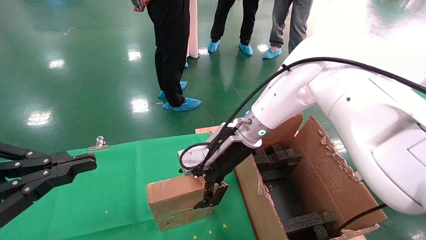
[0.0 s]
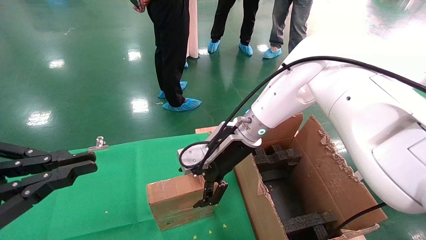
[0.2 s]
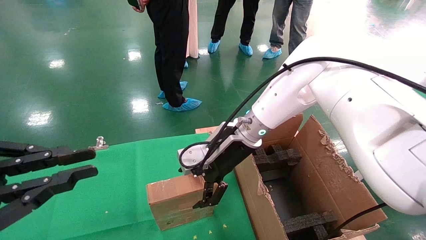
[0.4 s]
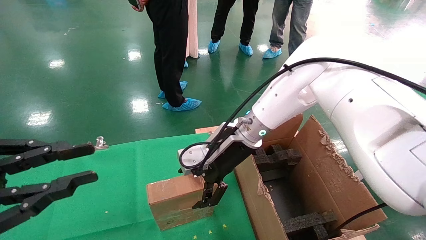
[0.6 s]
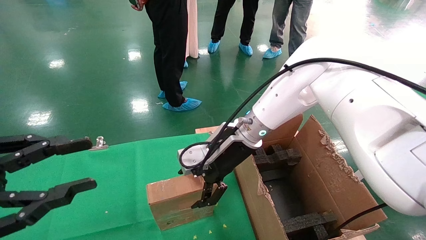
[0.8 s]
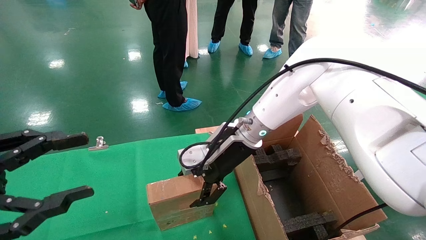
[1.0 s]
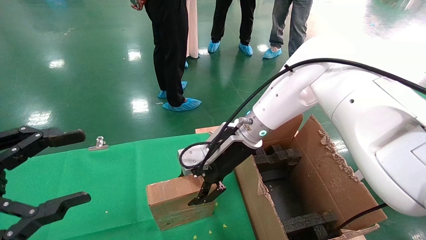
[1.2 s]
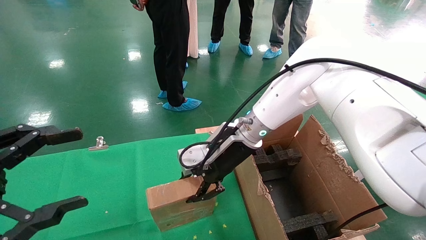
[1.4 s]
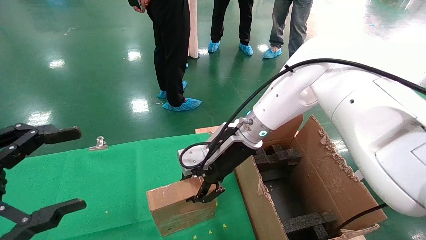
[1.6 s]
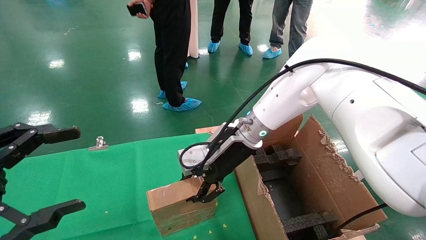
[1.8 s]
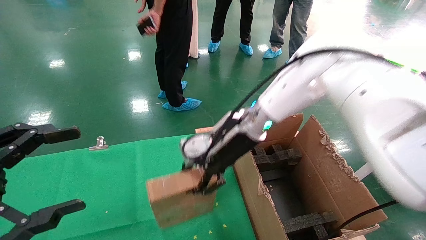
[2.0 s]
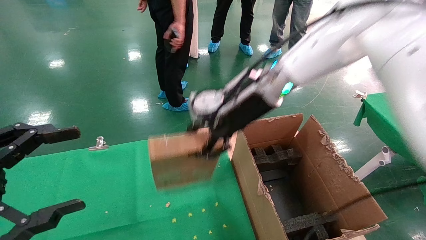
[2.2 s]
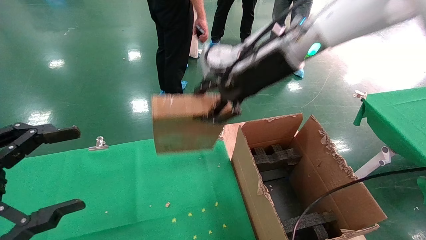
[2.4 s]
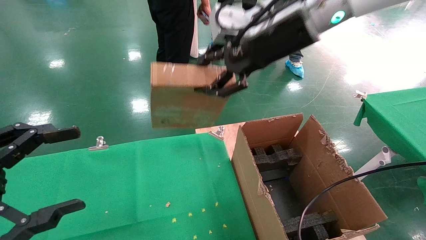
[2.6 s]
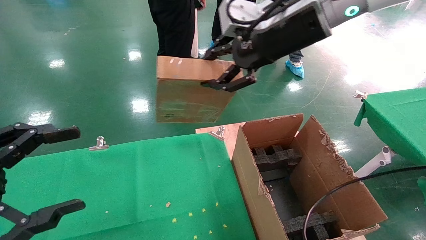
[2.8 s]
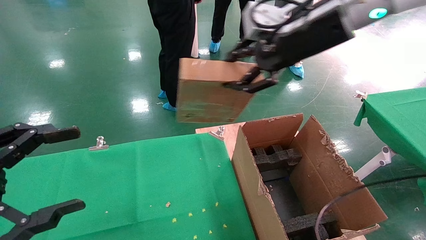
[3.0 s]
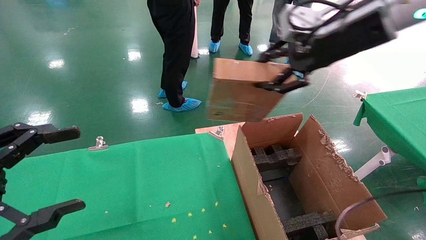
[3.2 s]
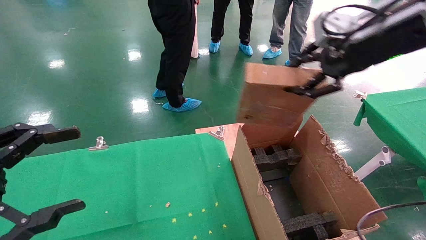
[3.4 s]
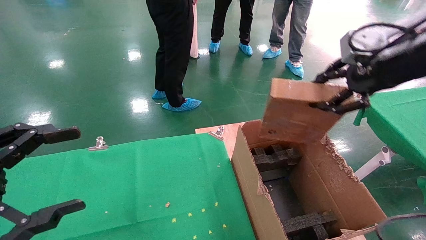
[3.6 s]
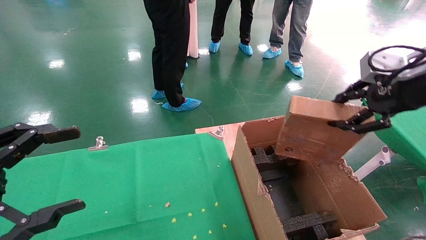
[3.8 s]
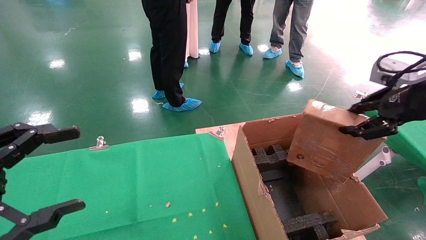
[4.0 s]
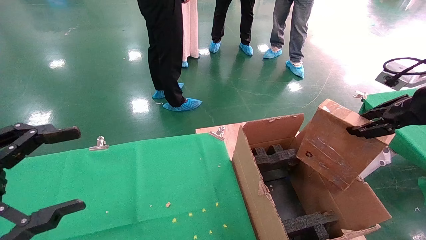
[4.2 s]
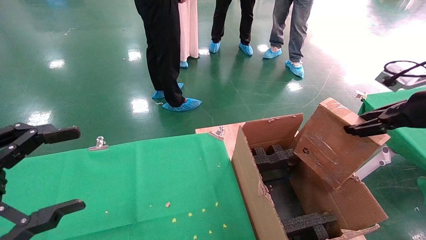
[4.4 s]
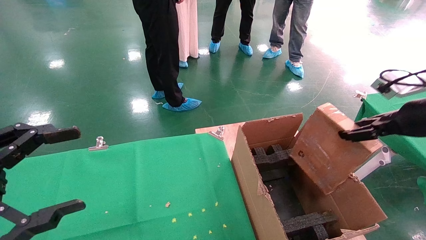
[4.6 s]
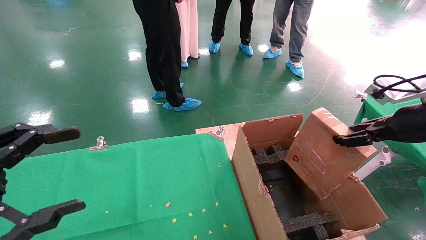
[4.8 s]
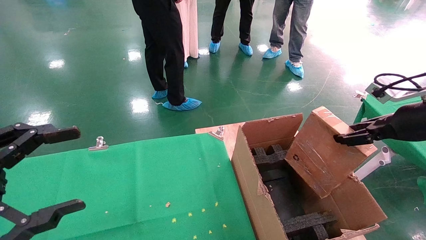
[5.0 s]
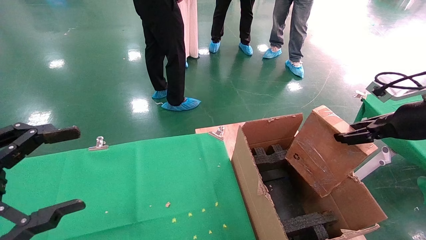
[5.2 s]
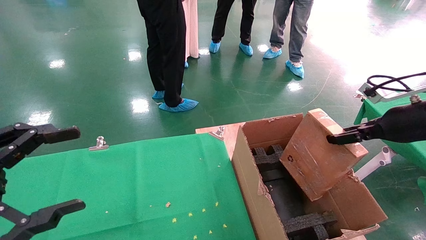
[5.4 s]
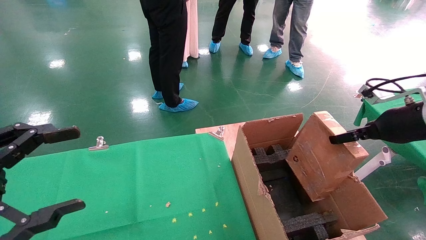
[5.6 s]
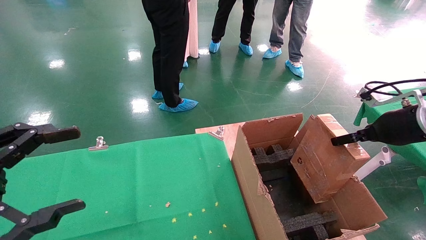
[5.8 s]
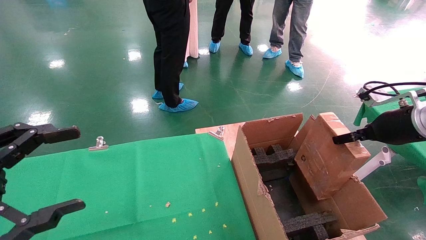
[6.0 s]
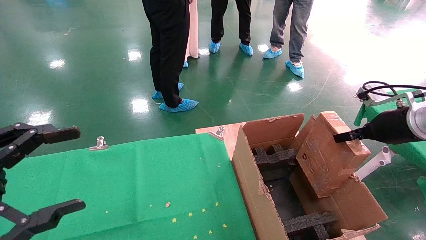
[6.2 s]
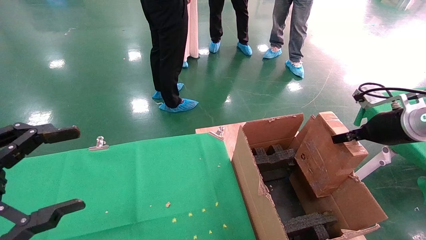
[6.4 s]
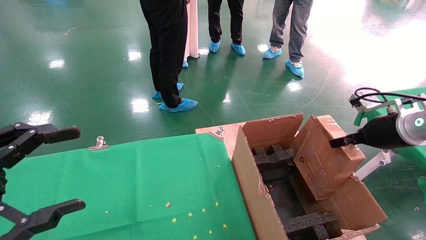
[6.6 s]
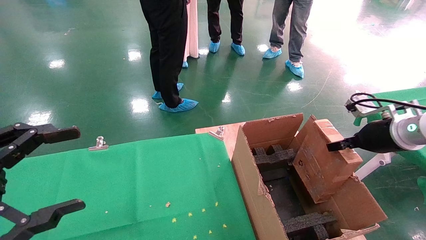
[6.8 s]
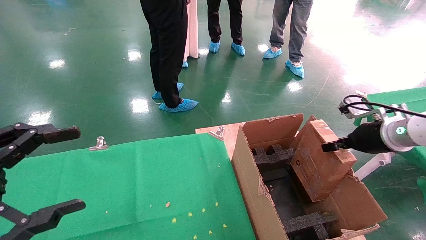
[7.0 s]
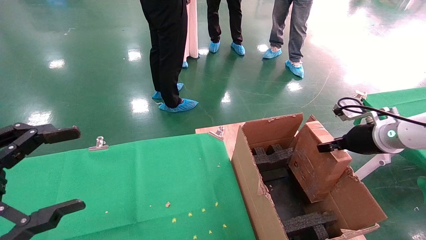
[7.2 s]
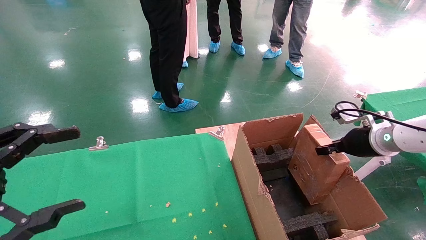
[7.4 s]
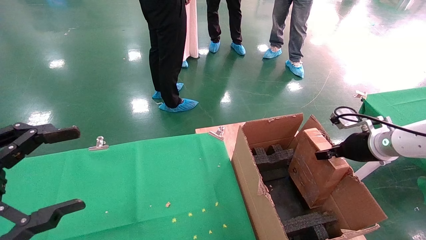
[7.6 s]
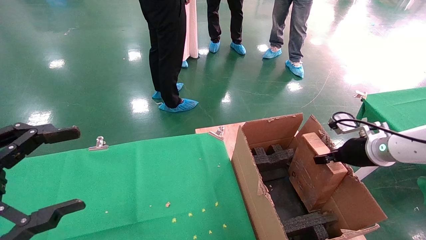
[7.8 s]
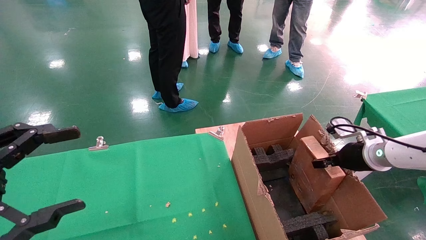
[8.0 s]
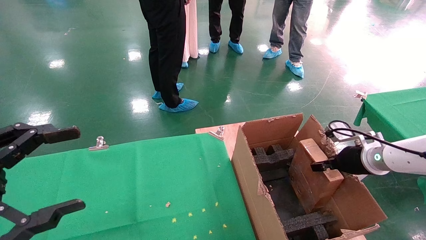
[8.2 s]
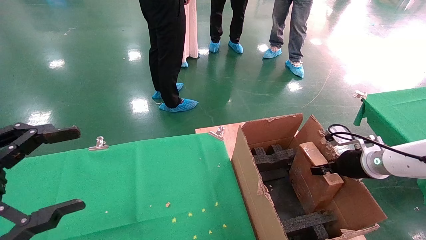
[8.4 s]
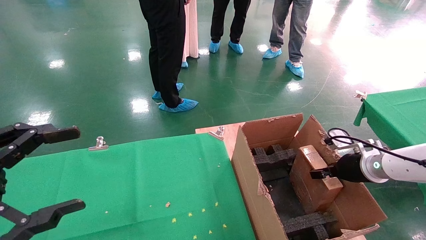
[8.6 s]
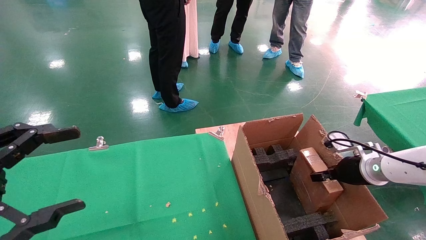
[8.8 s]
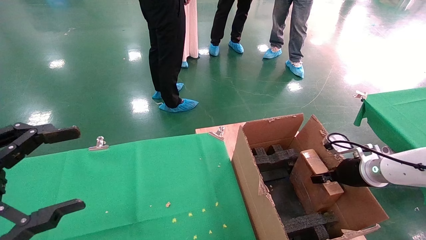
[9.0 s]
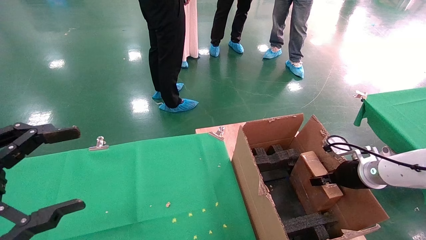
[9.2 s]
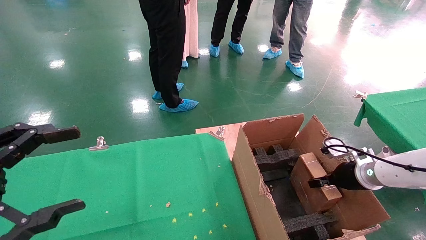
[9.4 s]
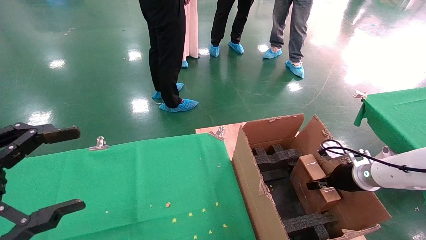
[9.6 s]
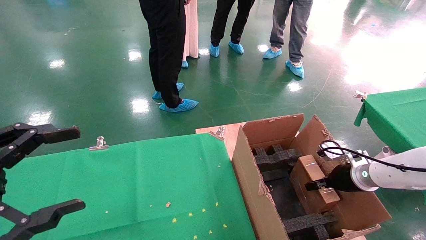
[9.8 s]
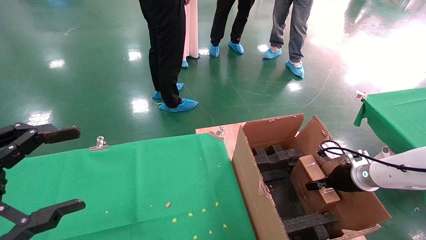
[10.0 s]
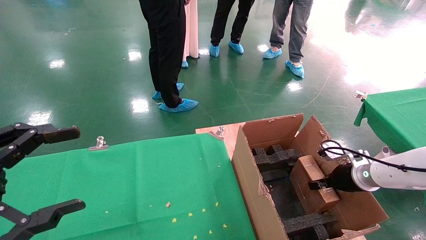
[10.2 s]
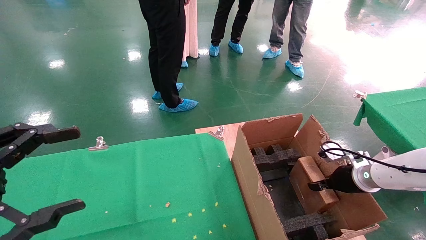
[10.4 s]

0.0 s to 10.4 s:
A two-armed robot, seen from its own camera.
Task of the whole recording: using a robotic arm to pick up a cardboard box and palace it the carton.
0.0 to 1.4 s: The left gripper opens, while the right gripper closes up.
1.4 to 3.0 s: The right gripper travels upward and to the right by about 25 cm, and closes.
3.0 to 4.4 s: The right gripper heads to the right and downward, covering about 25 cm.
4.4 to 6.0 s: The right gripper goes some 5 cm downward.
6.0 to 7.4 s: The right gripper shifts some 10 cm downward and forward.
7.4 to 9.0 s: The right gripper goes about 10 cm downward.
9.0 to 10.4 s: The grippers stay close to where they were, moving slightly.

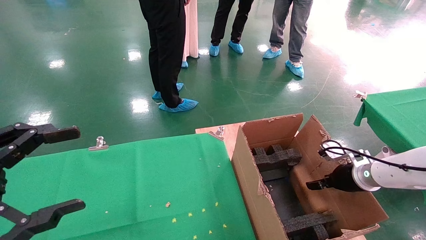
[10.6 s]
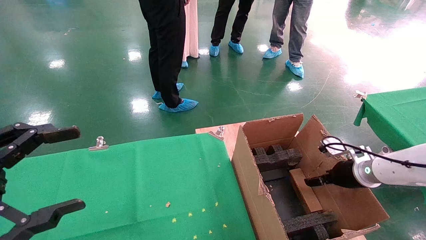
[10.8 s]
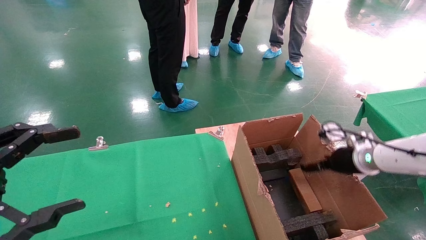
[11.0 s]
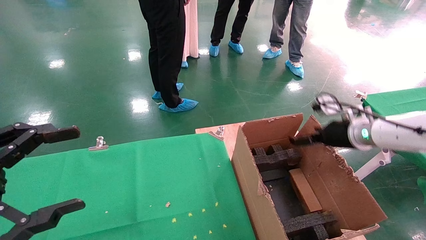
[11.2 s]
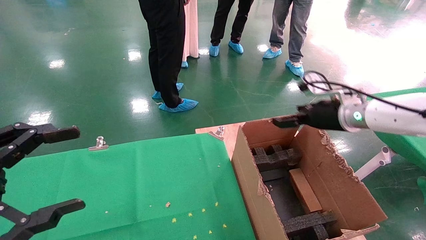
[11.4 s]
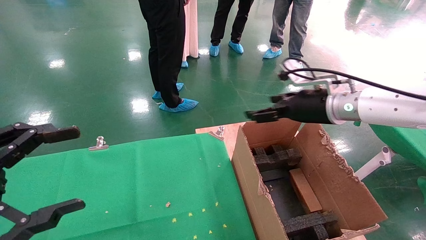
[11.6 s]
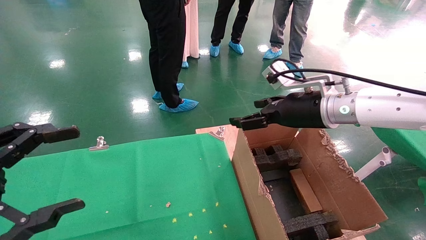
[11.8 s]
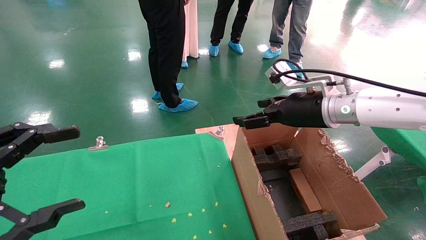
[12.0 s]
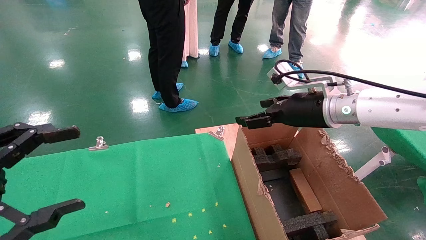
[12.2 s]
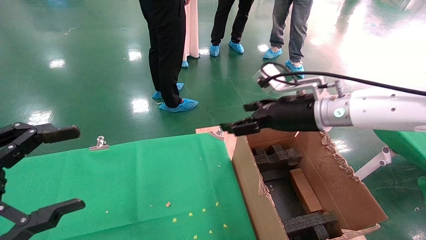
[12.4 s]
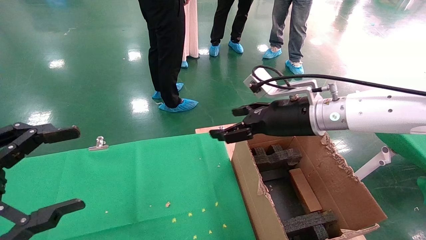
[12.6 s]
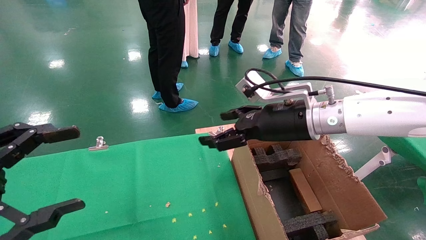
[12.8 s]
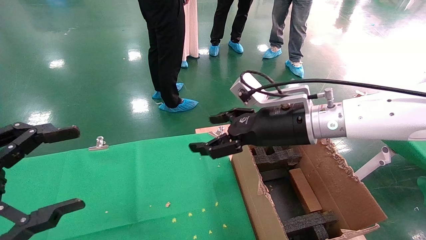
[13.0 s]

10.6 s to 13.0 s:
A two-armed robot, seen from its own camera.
Task of the whole recording: using a robotic arm to pick up a cardboard box and palace it the carton.
10.6 to 11.8 s: The right gripper shifts about 25 cm upward and to the left, and opens.
11.8 to 13.0 s: The right gripper shifts some 5 cm to the left.
